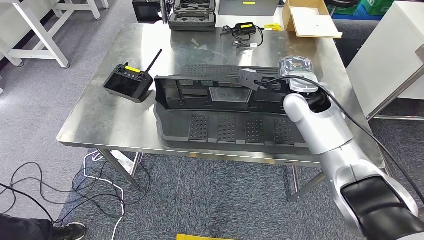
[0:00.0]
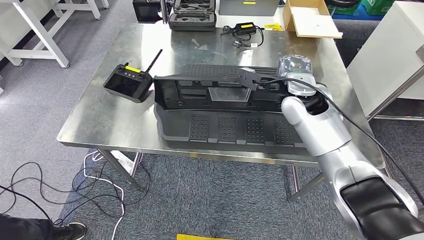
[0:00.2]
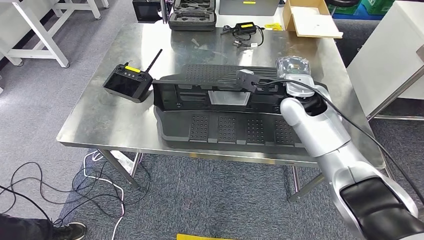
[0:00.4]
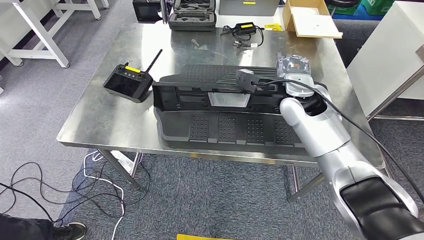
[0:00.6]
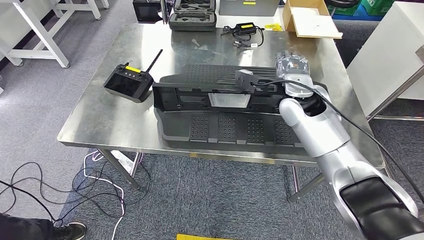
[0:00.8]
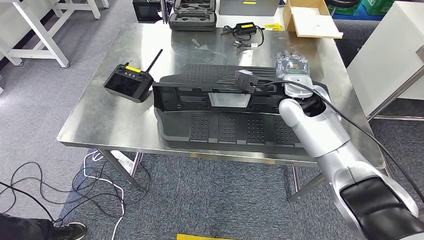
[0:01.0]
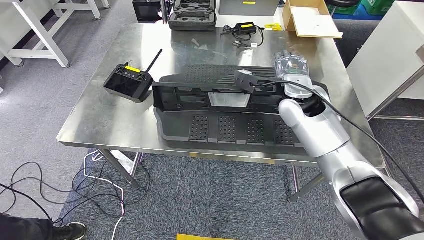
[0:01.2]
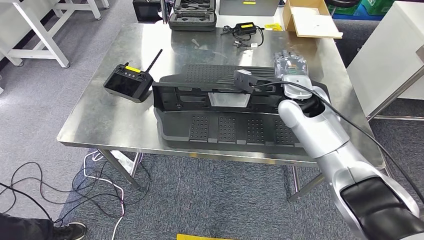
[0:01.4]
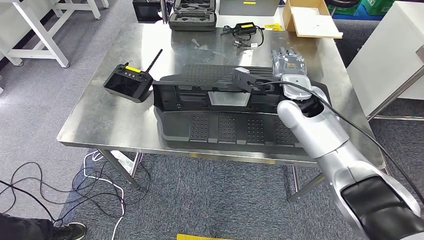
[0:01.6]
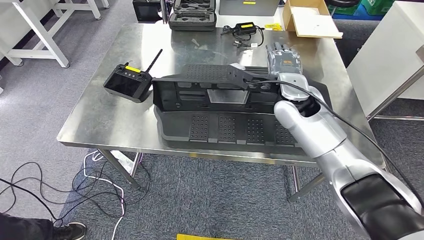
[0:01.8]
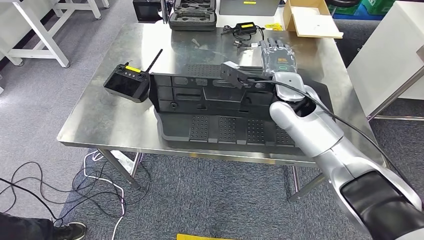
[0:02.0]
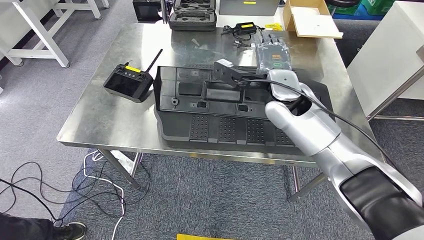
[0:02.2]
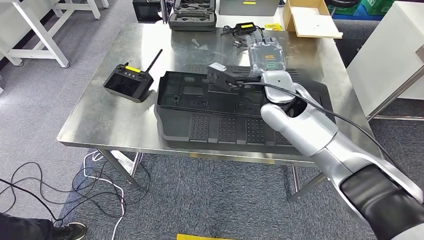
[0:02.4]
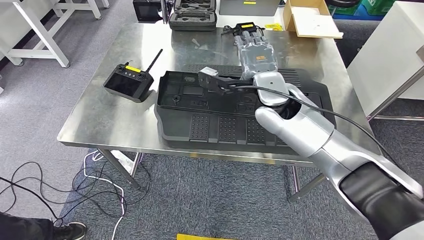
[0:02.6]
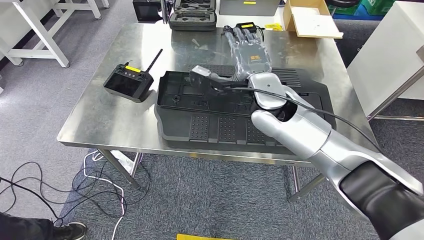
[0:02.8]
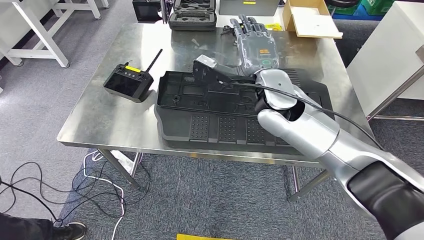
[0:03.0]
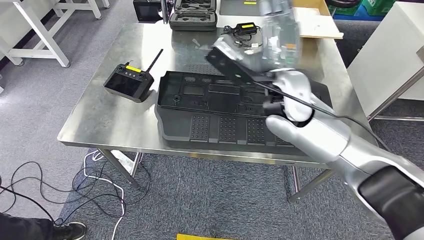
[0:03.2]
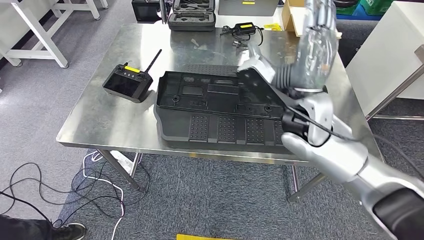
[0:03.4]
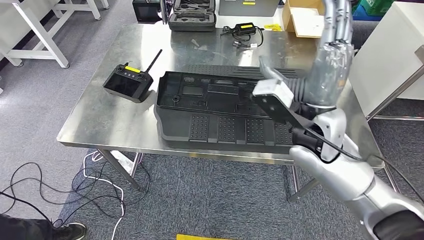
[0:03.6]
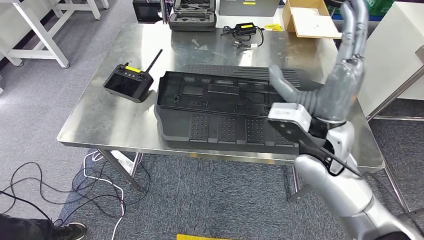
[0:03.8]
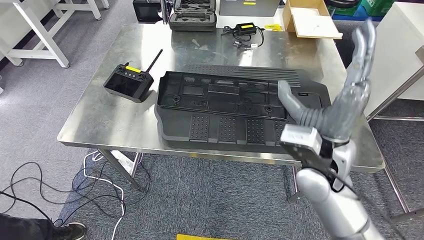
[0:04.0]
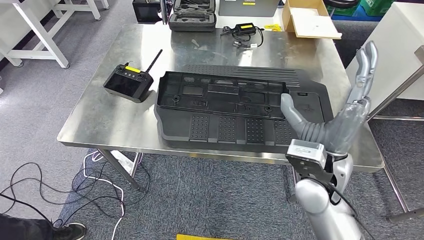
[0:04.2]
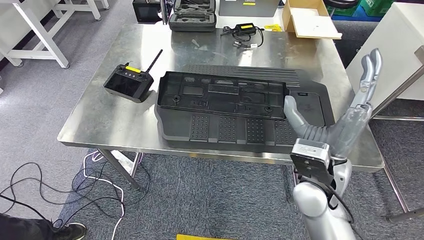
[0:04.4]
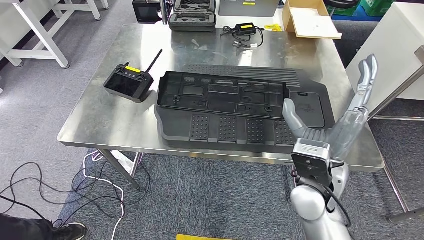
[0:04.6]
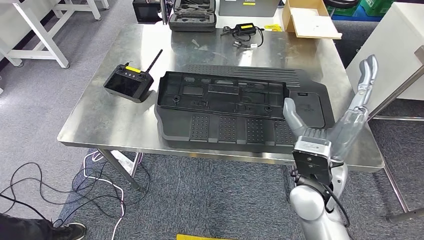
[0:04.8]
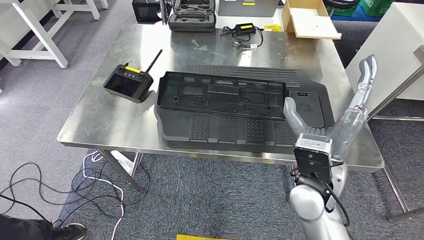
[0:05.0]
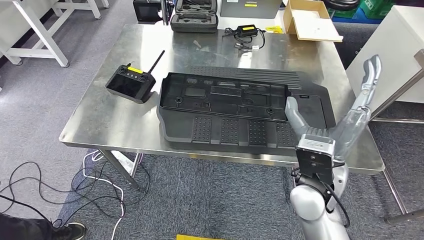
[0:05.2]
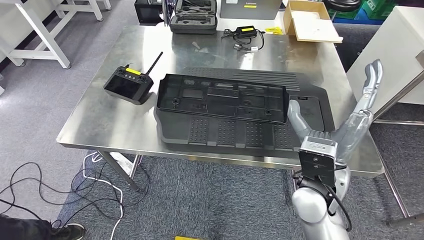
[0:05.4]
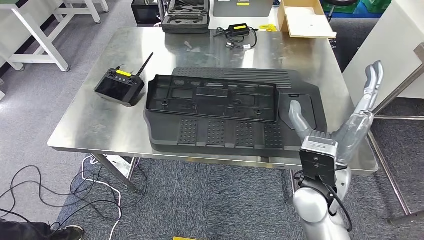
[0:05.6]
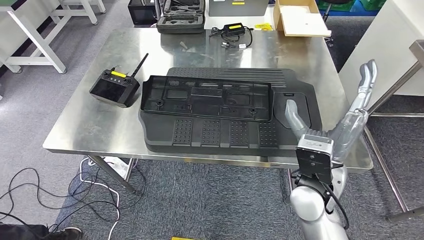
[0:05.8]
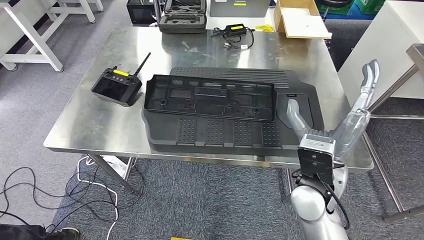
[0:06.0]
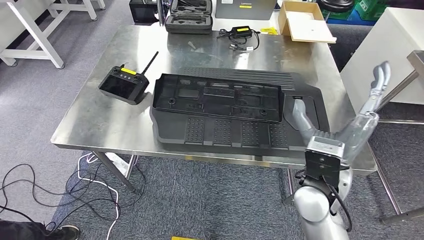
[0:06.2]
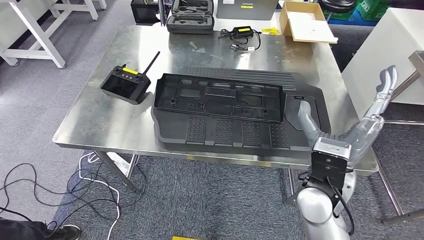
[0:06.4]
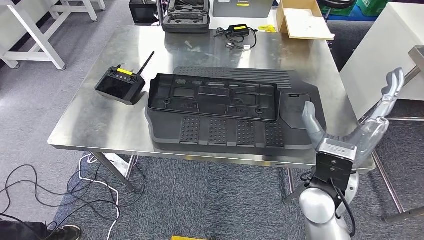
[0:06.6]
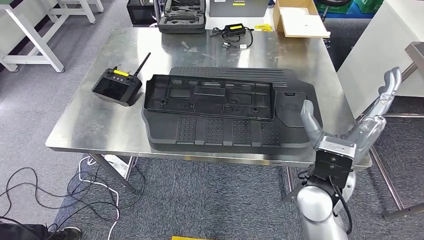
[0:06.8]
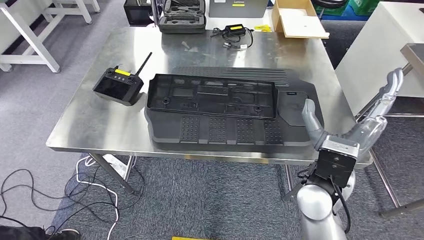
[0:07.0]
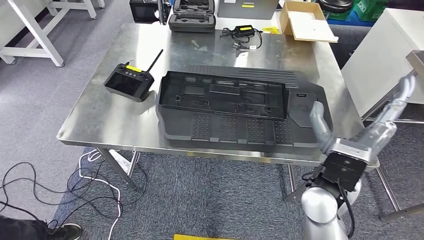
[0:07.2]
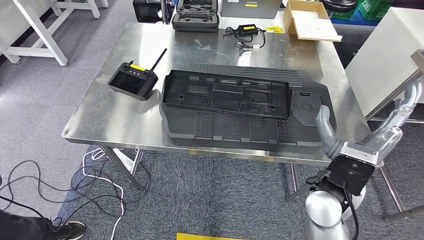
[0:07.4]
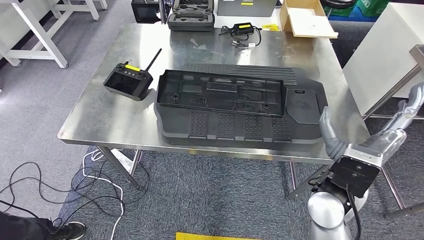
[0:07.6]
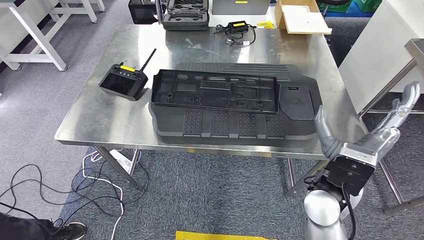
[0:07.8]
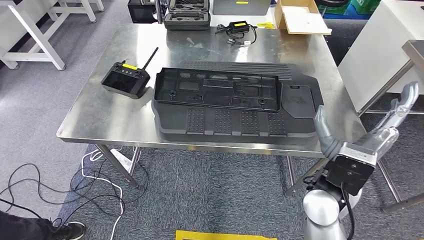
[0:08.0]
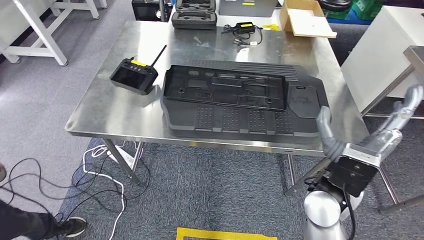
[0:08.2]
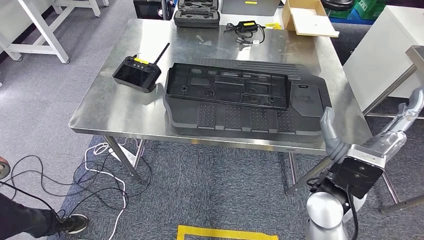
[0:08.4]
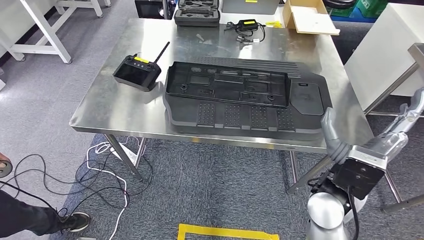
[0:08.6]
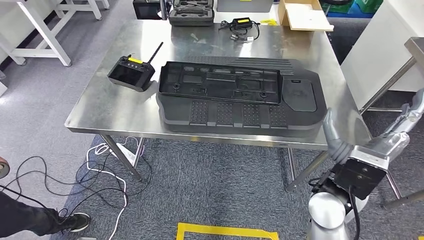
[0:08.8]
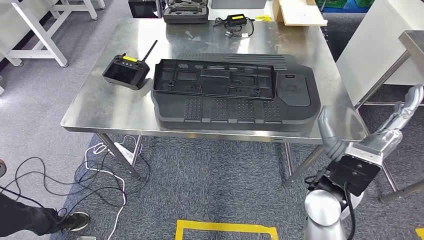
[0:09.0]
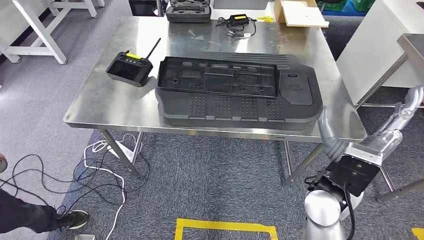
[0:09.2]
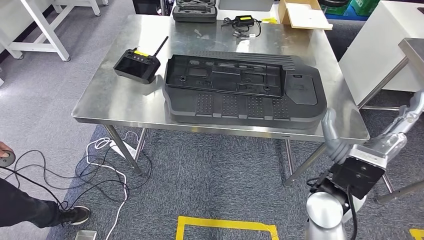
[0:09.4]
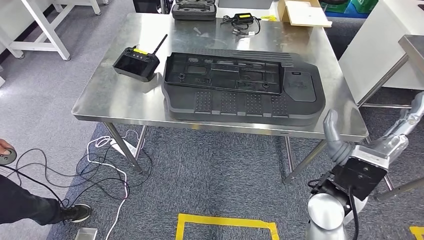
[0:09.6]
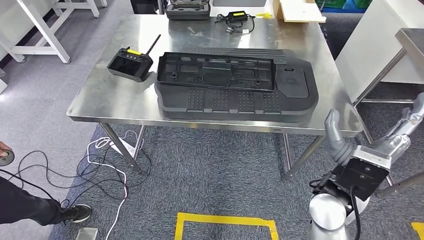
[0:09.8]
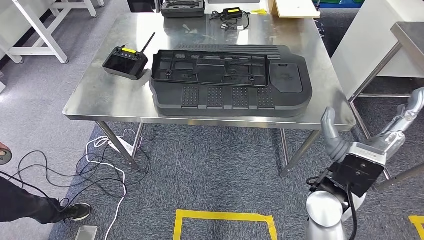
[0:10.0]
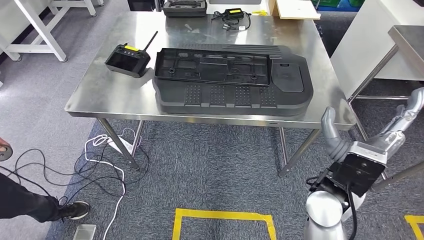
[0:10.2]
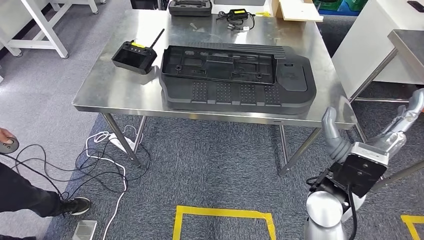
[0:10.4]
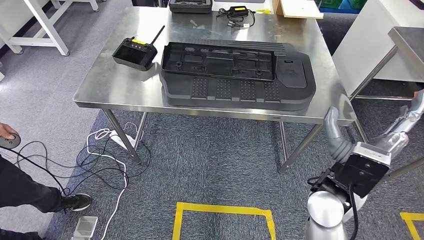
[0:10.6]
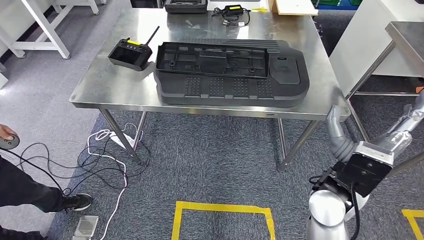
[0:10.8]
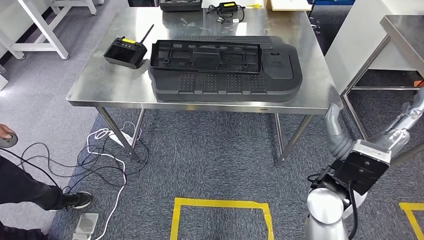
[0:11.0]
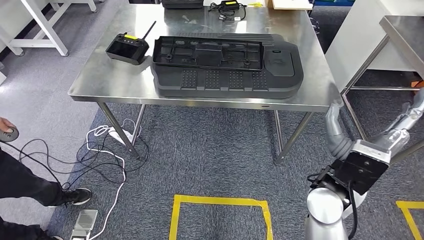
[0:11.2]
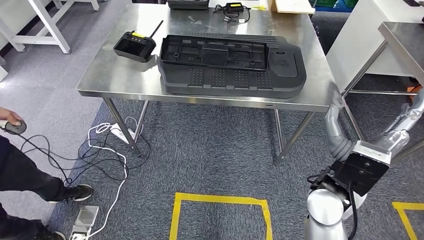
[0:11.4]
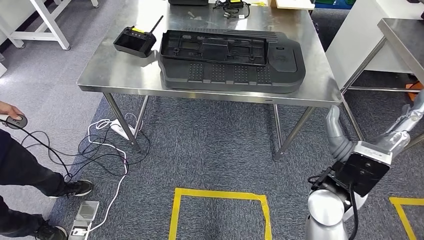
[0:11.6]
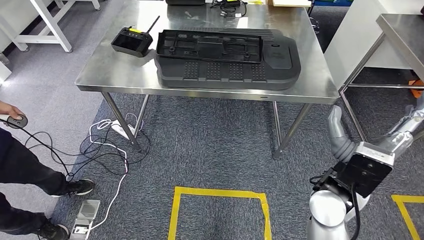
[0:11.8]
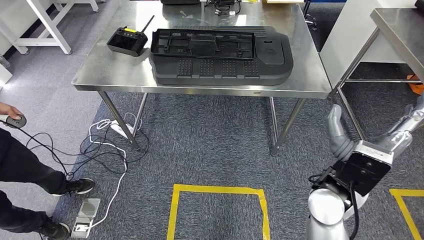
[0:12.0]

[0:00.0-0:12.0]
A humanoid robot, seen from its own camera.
Step, 0:00.0 to 0:08.2: Insert the large material into the corresponding slot on the workbench.
0:00.0 to 0:01.6: There are only small adjustments of the hands.
0:01.6 to 0:03.0: The right hand is displaced to the left by some 10 cm.
0:03.0 to 0:04.4: The right hand goes approximately 20 cm backward, downward and to the right.

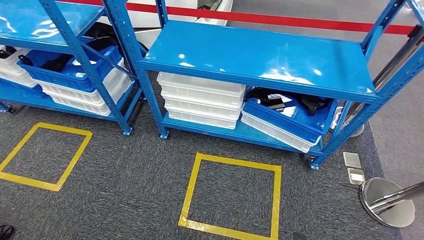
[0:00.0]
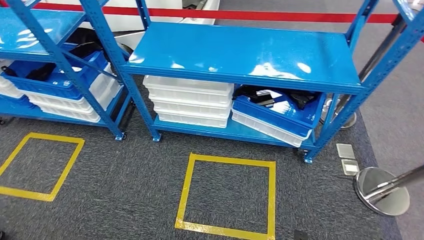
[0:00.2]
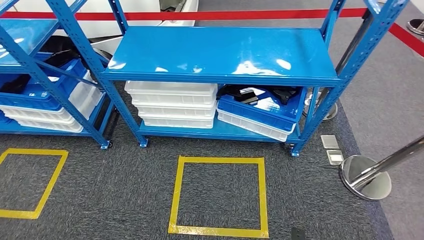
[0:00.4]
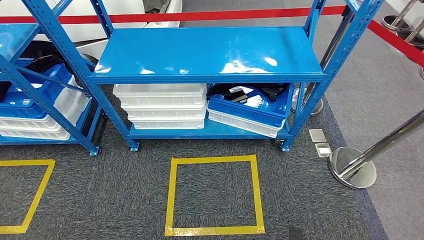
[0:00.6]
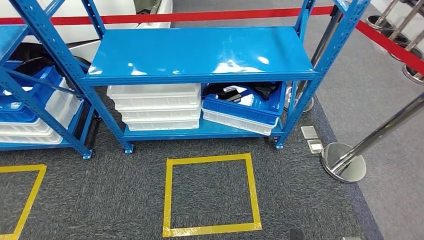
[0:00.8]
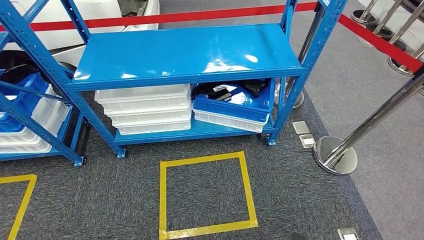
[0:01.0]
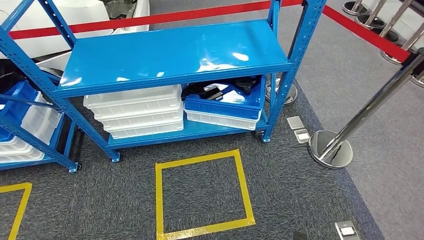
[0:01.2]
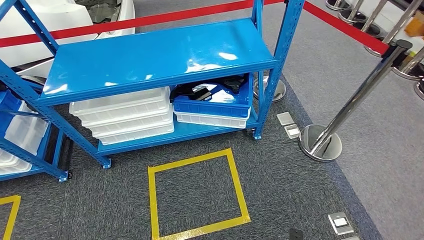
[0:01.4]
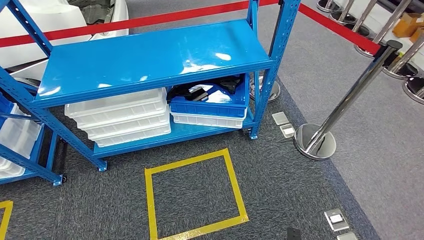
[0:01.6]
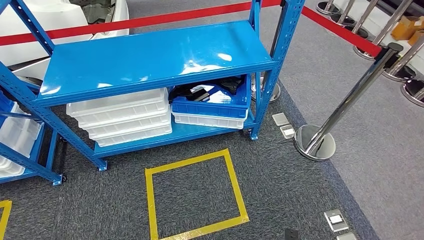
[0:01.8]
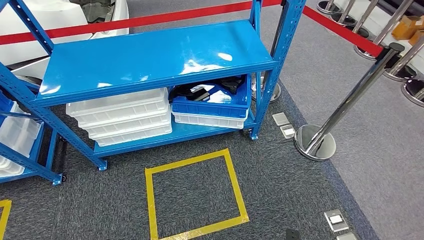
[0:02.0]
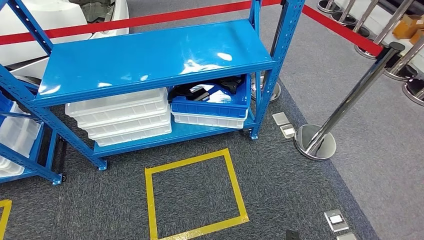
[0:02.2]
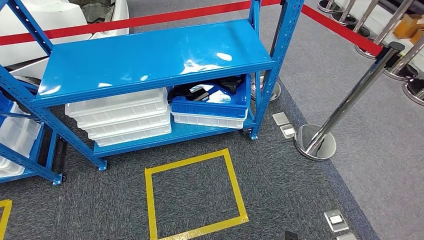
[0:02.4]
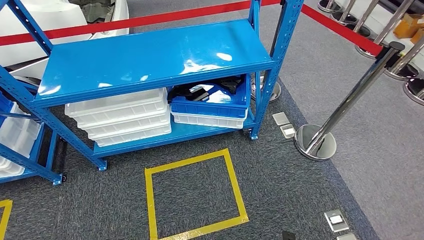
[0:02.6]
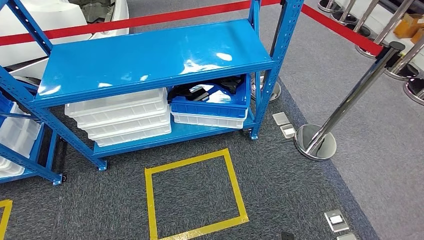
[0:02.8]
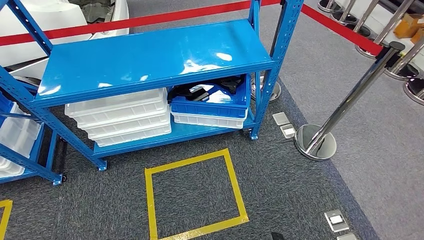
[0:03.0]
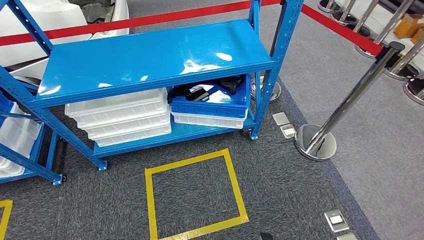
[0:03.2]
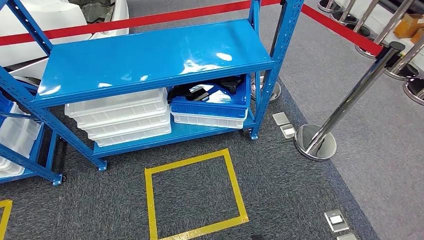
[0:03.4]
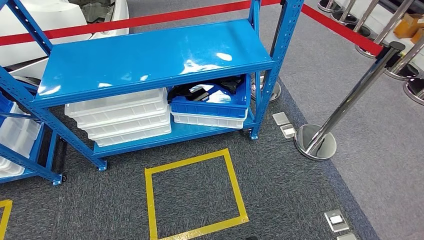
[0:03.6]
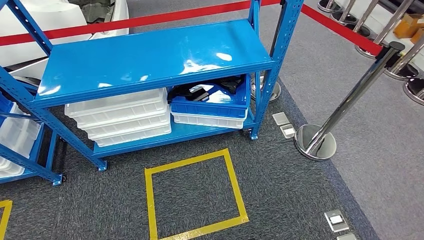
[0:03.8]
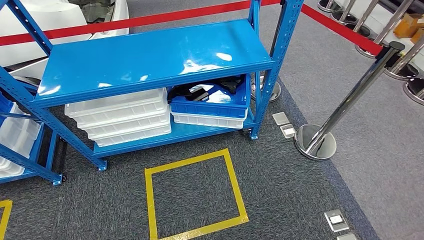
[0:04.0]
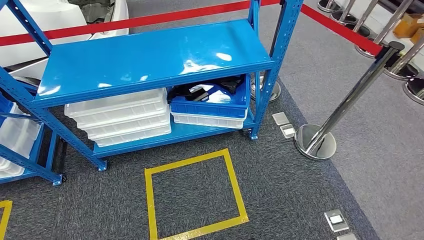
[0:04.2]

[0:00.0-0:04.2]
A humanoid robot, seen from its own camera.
Step, 0:00.0 to 0:04.0: Return to the initial position at the shelf.

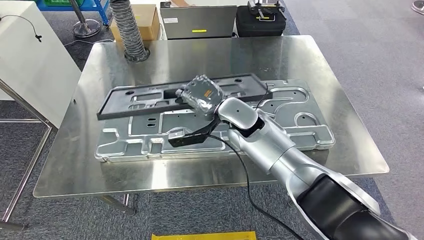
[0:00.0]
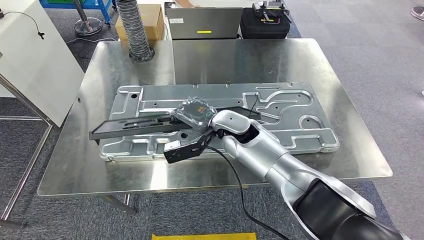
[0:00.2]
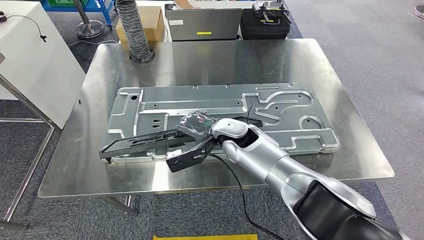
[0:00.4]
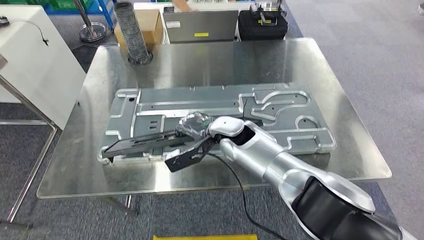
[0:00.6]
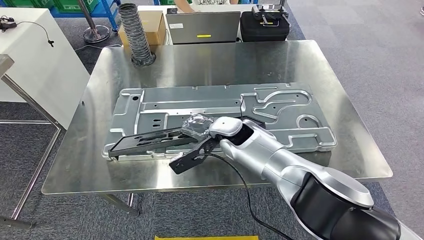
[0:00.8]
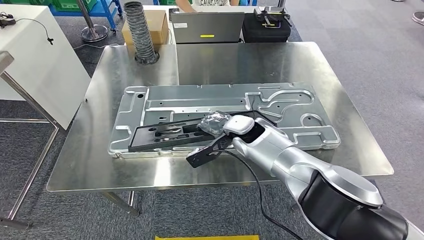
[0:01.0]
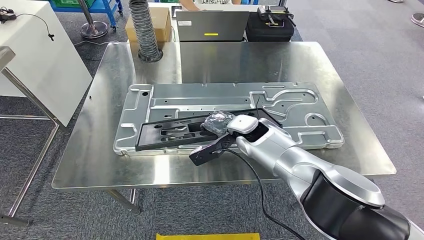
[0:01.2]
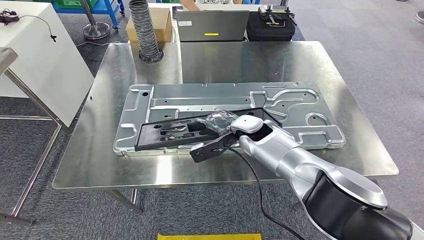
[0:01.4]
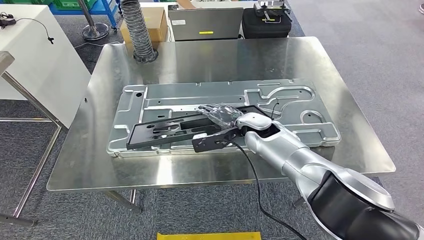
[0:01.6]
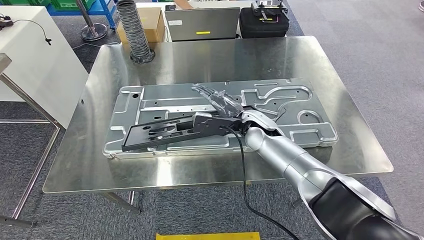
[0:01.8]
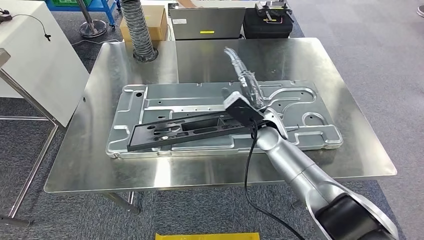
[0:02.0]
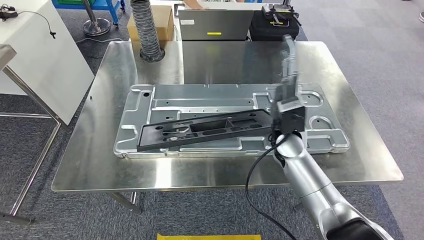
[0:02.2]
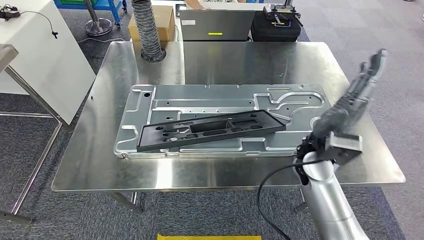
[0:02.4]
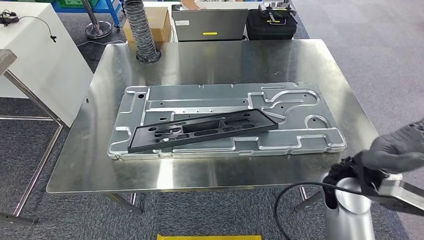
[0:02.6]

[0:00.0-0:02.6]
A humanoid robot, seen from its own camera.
Step, 0:00.0 to 0:02.6: Insert the large material into the corresponding slot on the workbench.
